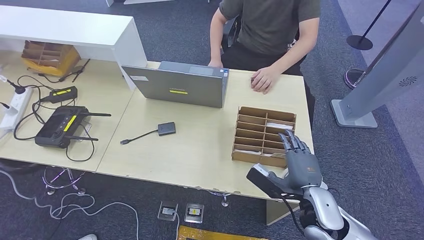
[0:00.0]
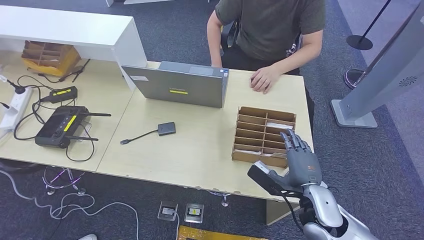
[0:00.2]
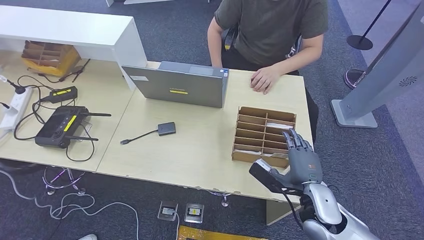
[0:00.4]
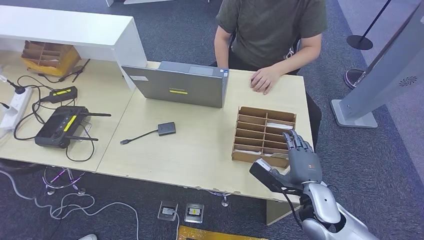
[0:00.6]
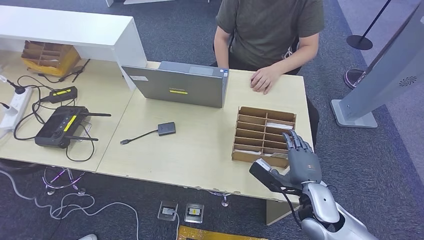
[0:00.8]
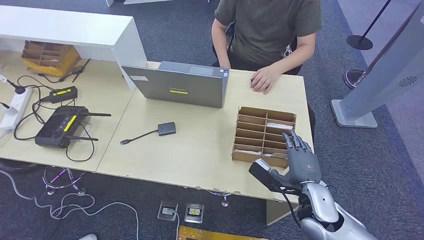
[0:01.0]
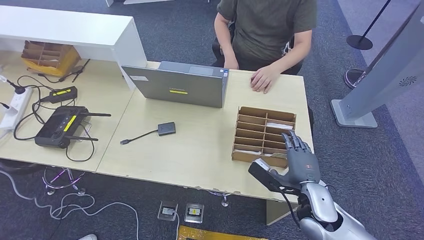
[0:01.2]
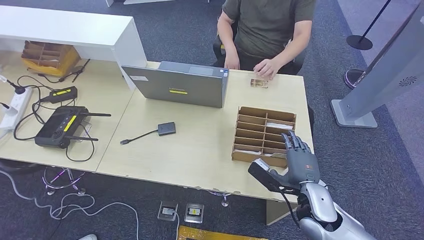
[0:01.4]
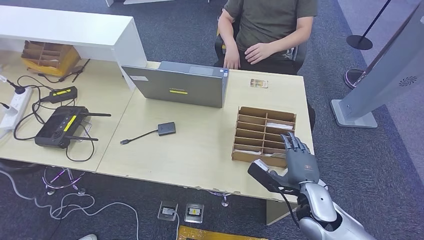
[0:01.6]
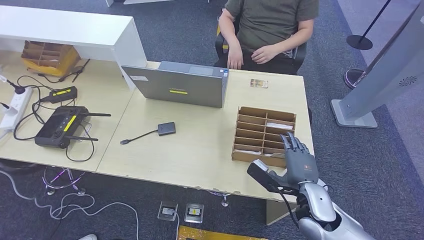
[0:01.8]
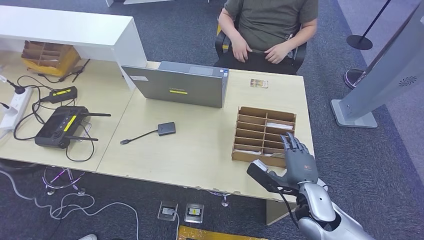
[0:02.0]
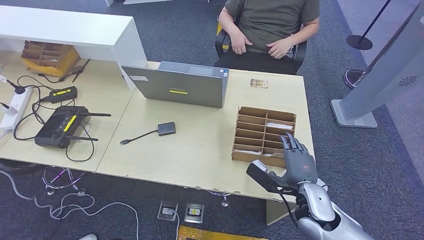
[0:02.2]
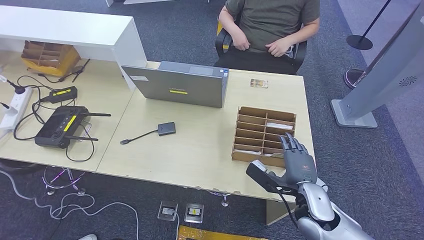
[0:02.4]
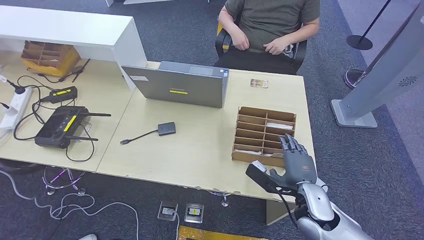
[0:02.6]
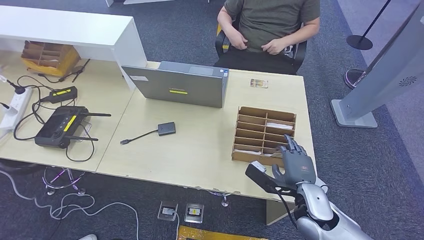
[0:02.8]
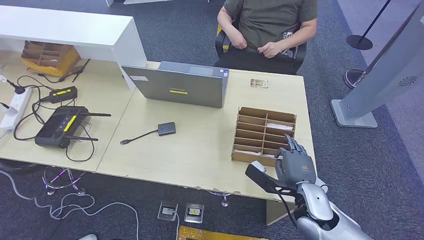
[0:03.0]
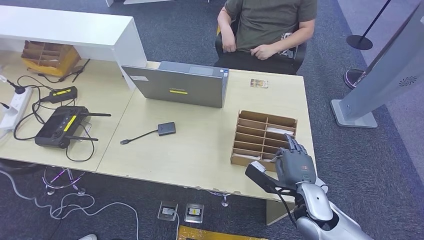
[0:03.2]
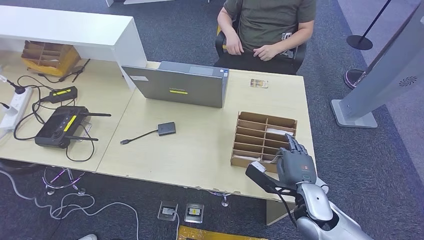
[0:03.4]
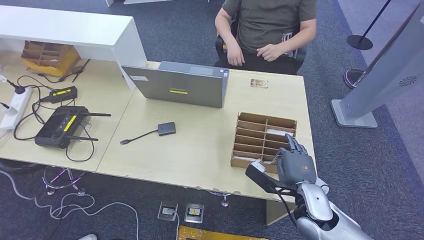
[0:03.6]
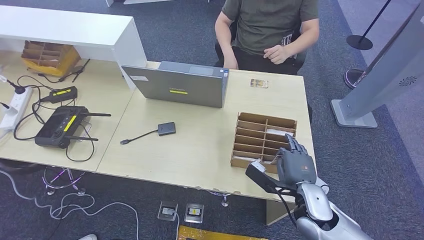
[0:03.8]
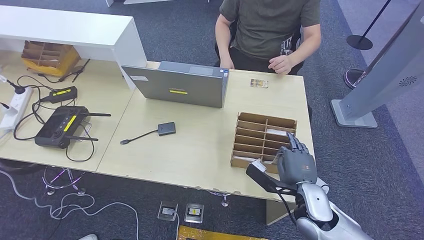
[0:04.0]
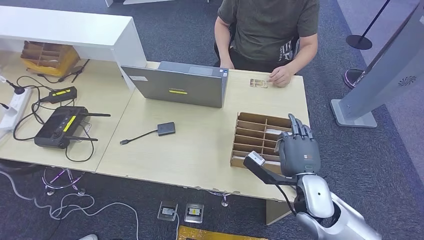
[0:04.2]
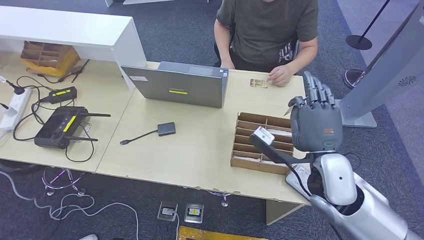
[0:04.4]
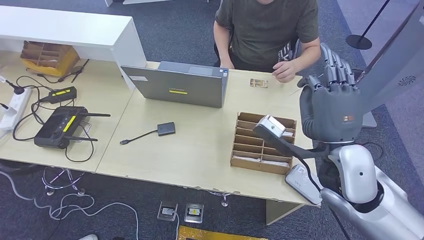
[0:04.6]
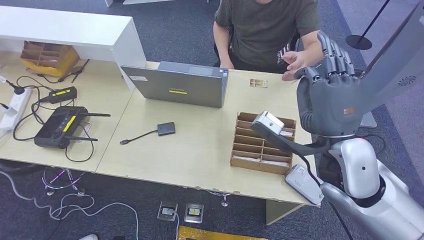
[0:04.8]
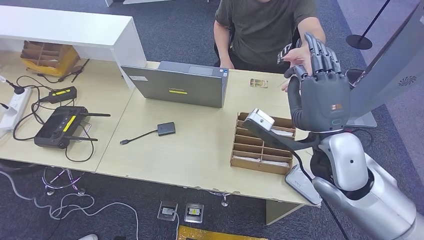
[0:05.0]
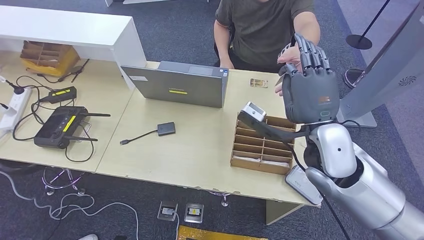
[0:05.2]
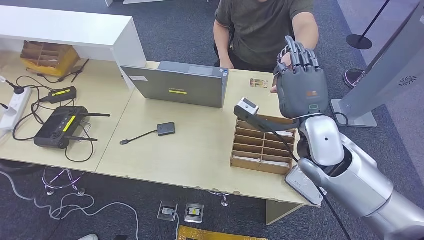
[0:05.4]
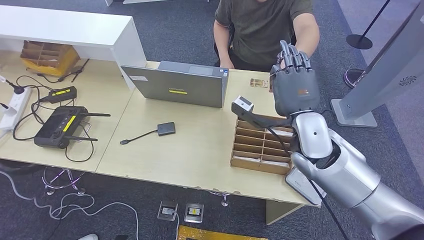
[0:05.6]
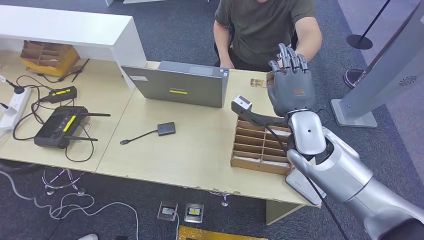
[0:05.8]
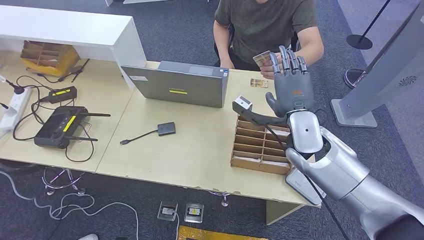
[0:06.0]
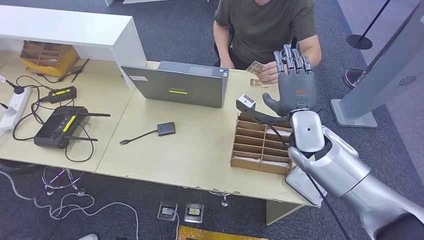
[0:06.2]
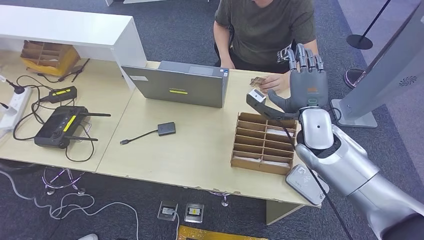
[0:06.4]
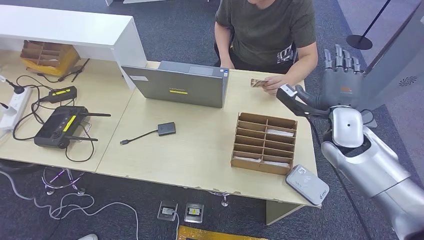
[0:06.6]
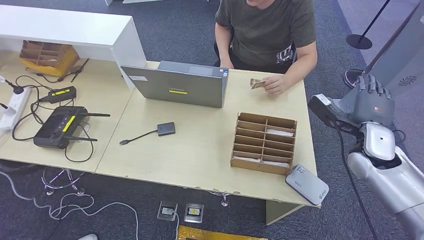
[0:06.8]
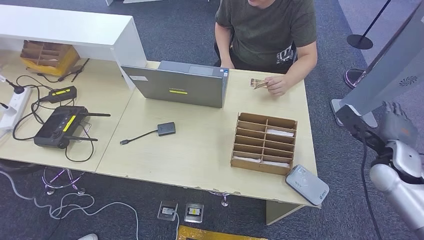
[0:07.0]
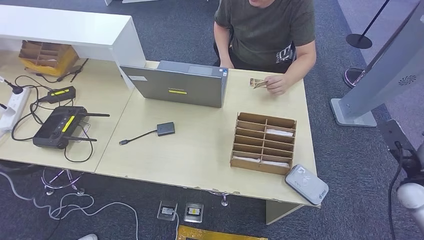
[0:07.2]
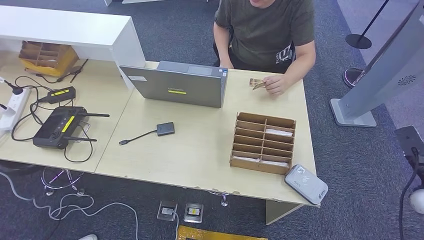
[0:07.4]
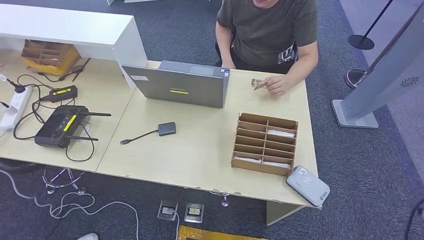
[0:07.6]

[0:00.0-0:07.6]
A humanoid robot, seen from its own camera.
Step, 0:00.0 to 0:05.0: Pick up the room key from the key card box.
Step, 0:05.2 to 0:07.6: Hand the room key to the person.
0:00.0 to 0:01.6: The hands make only small movements.
0:01.6 to 0:03.0: The two hands keep their place.
0:03.0 to 0:04.6: The right hand shifts some 20 cm upward.
0:04.6 to 0:06.0: The right hand heads forward, covering some 10 cm.
0:06.0 to 0:07.6: The right hand shifts roughly 35 cm to the right.

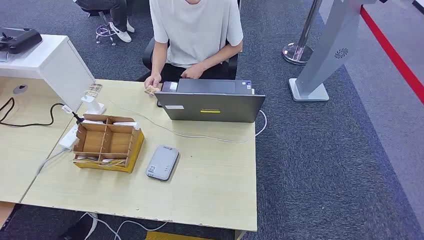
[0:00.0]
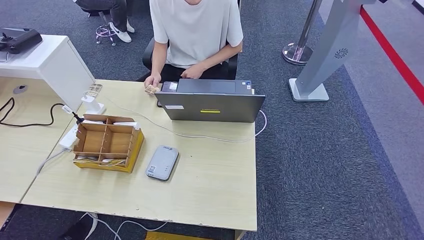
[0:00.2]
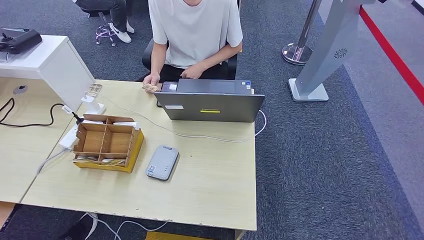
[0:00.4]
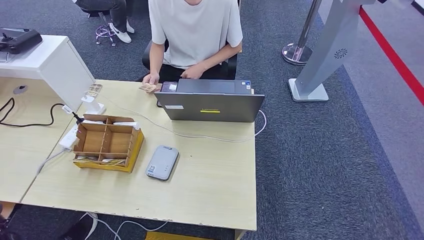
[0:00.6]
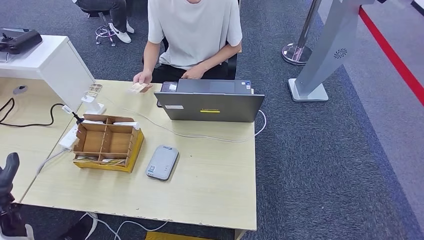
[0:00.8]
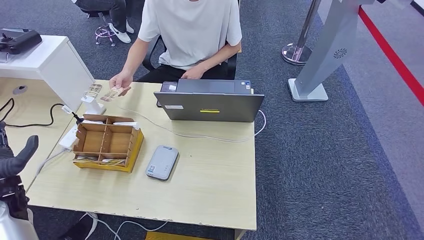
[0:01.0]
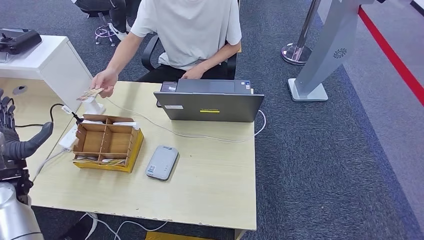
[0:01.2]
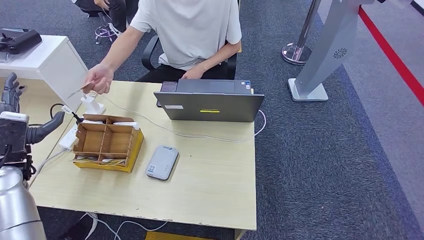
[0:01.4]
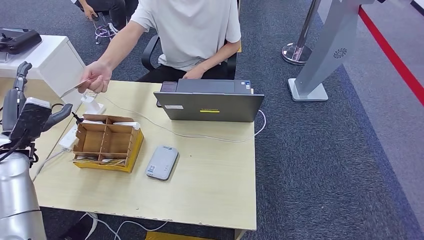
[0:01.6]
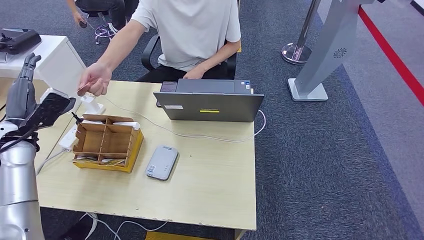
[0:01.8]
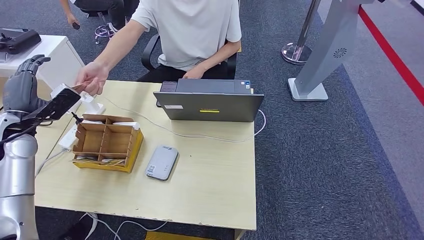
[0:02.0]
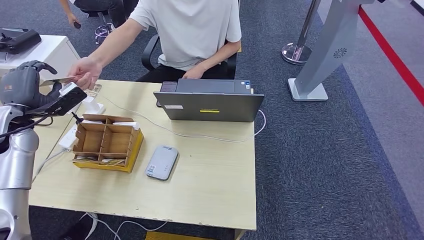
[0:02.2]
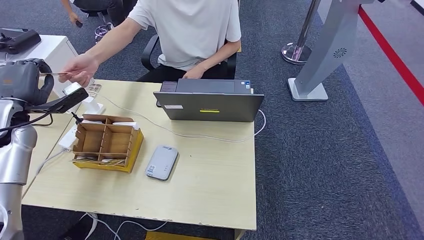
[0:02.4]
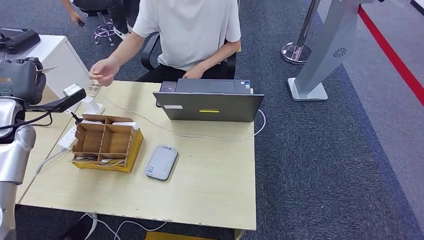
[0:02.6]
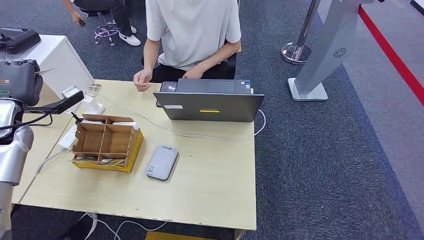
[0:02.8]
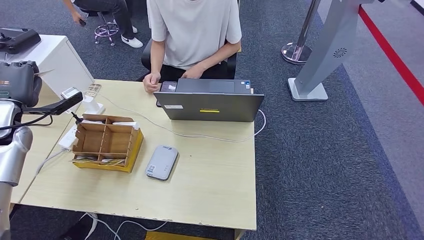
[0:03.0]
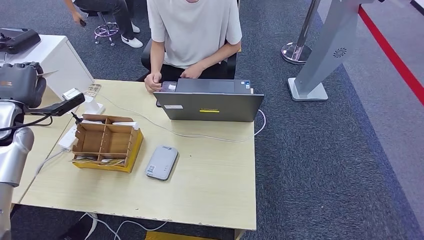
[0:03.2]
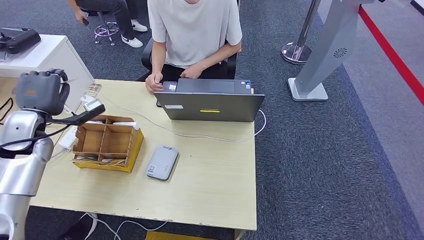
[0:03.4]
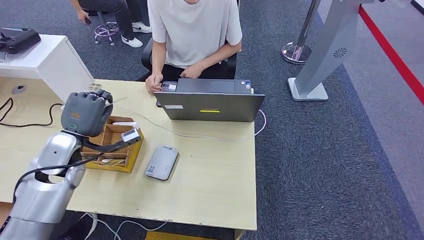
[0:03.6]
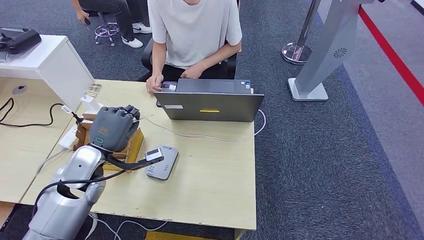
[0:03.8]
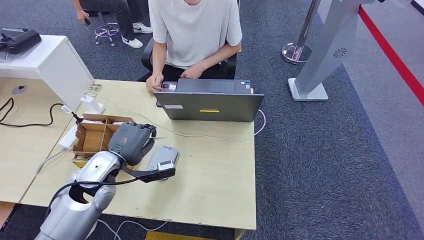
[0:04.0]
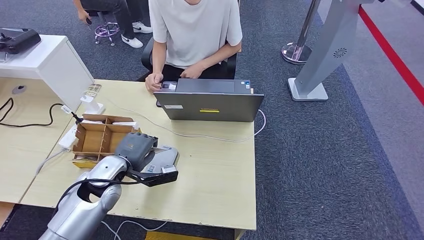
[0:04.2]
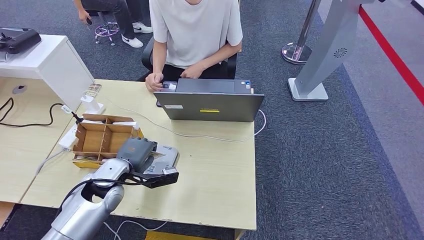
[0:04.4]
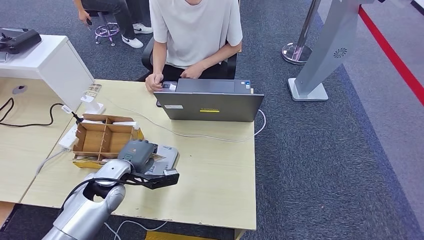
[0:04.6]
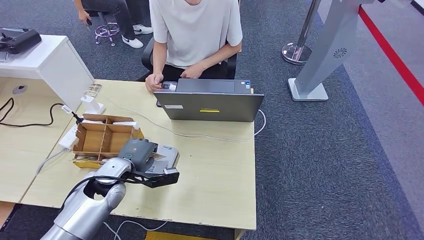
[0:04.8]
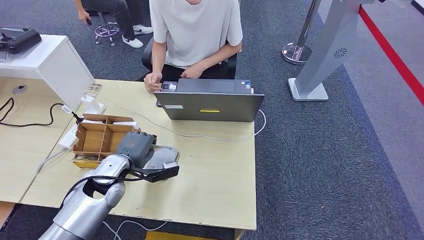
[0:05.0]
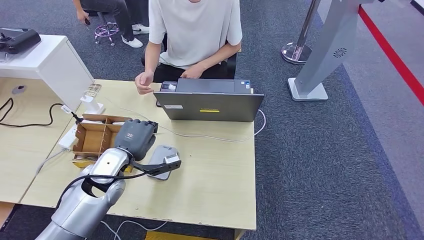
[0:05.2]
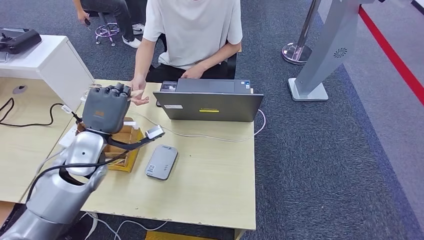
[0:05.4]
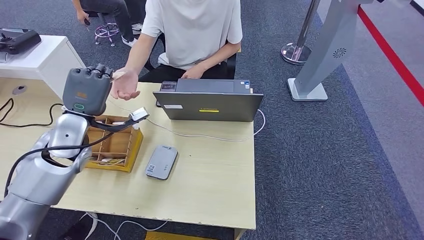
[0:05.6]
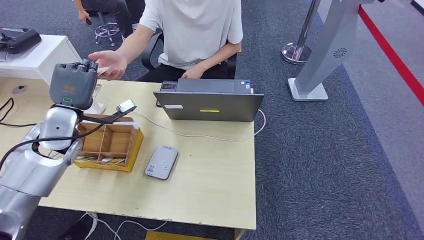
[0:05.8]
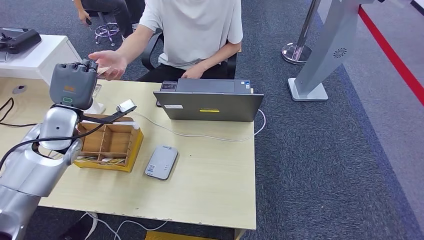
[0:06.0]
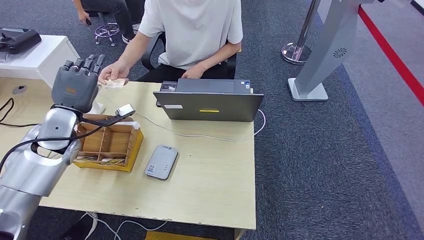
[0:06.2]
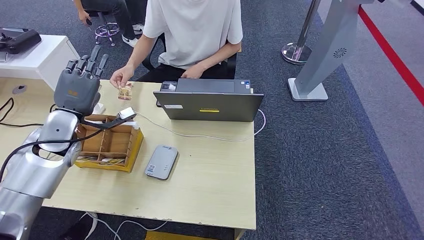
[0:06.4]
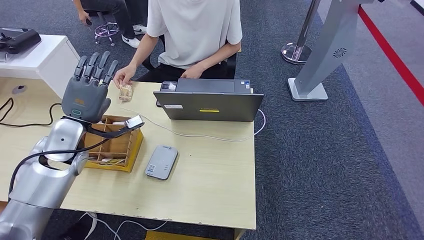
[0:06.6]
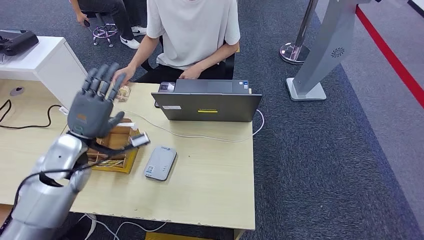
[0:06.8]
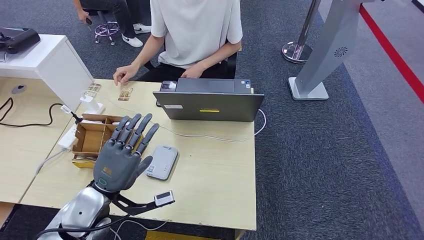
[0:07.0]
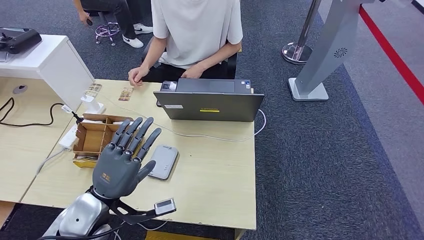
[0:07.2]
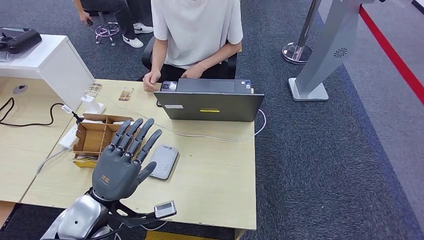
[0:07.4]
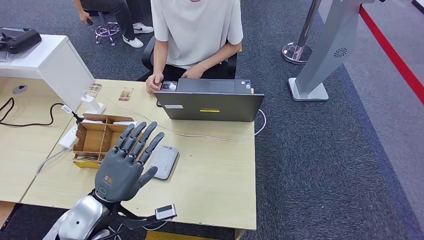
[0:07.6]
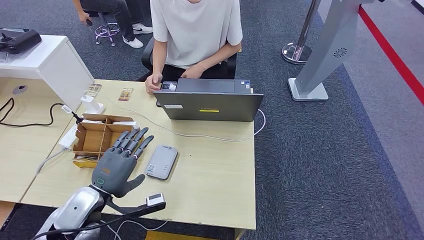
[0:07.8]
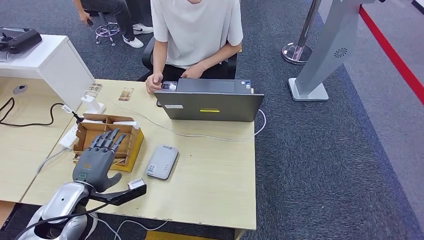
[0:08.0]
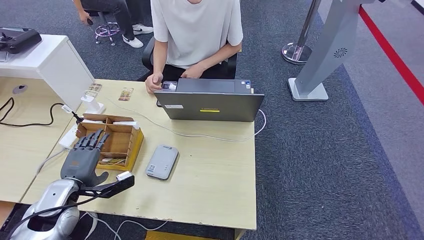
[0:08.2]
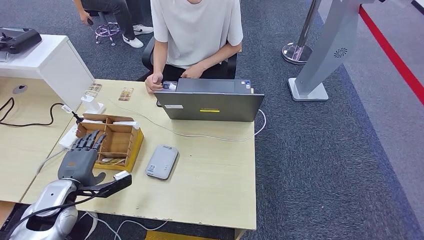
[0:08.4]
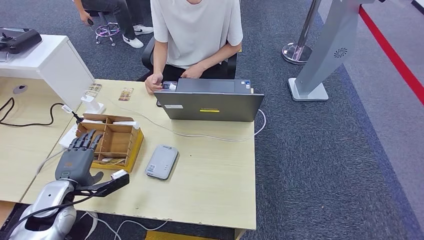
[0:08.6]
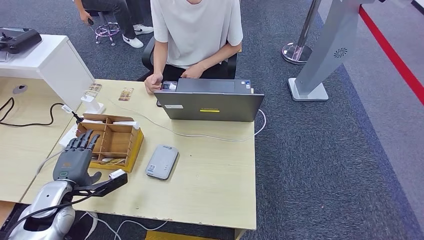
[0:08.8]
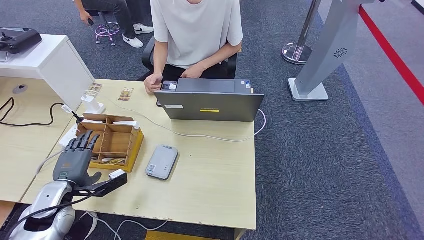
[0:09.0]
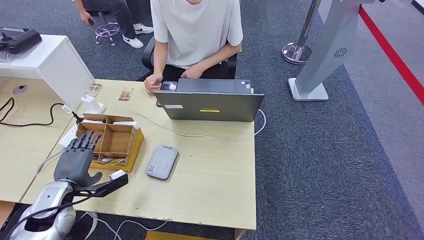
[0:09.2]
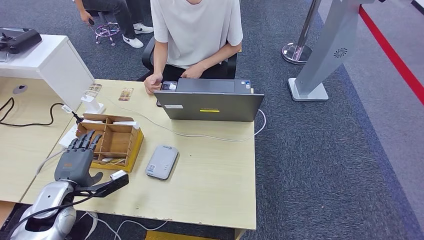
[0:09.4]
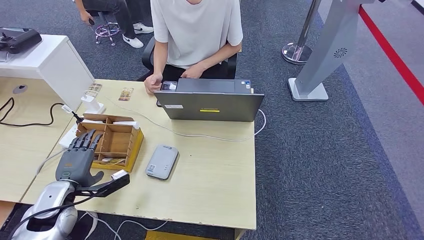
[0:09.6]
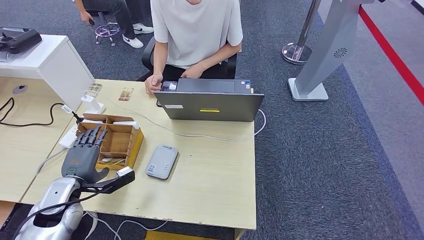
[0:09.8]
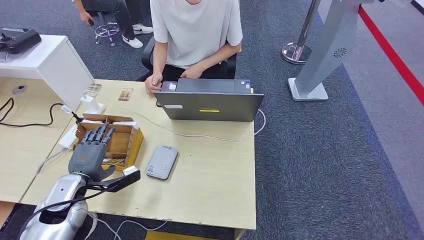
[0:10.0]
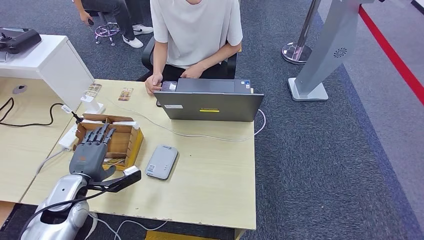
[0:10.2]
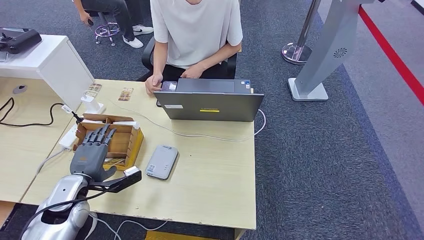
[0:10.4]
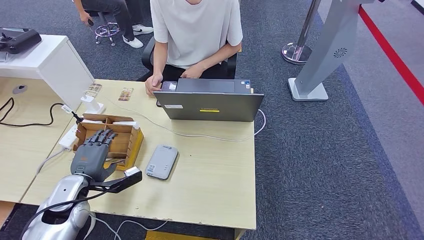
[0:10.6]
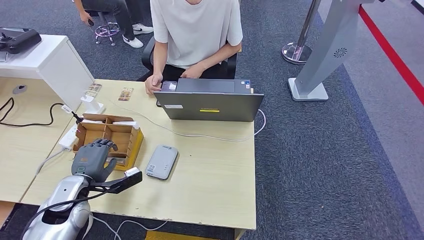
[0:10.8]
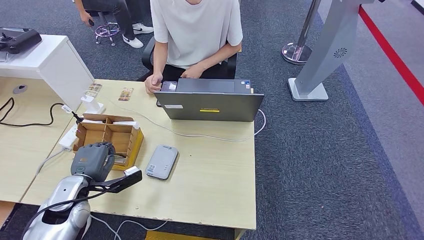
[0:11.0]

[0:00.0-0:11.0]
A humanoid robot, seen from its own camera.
Step, 0:00.0 to 0:02.6: Take the ID card from the person's hand.
Step, 0:02.8 to 0:04.6: Place the ID card on the card reader.
Step, 0:04.8 to 0:06.6: Hand the ID card to the person.
0:01.6 to 0:03.2: The left hand moves forward, about 5 cm. Meanwhile the right hand heads to the left, covering roughly 5 cm.
0:03.2 to 0:04.8: The left hand heads to the right and downward, covering about 25 cm.
0:04.8 to 0:06.2: The left hand travels upward, to the left and forward by about 15 cm.
0:06.2 to 0:07.8: The left hand goes roughly 20 cm backward, downward and to the right.
0:07.8 to 0:09.4: The left hand travels to the left and downward by roughly 10 cm.
0:09.4 to 0:11.0: There are only small adjustments of the hands.
